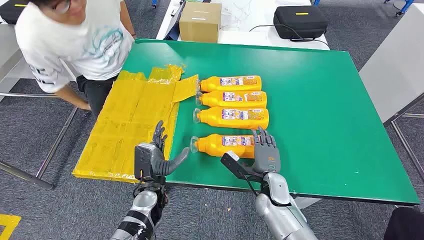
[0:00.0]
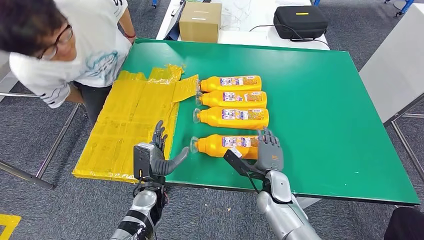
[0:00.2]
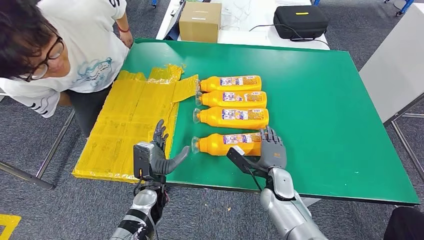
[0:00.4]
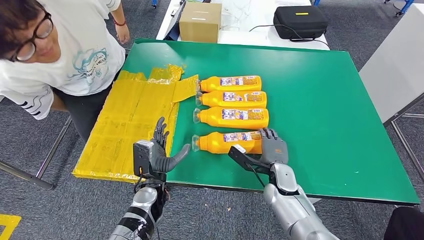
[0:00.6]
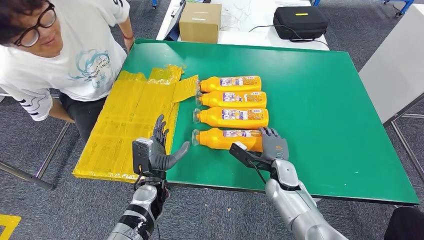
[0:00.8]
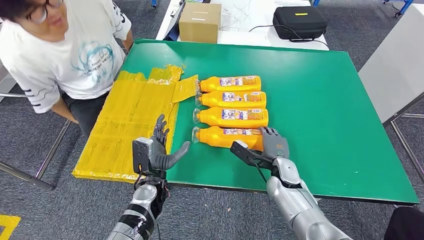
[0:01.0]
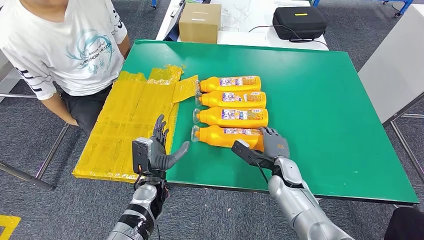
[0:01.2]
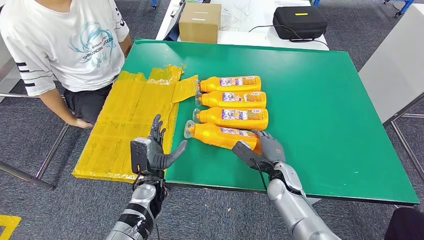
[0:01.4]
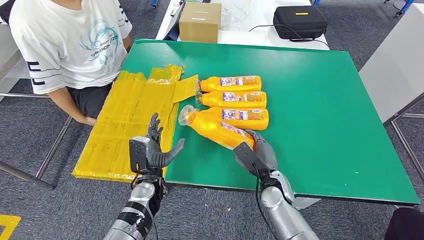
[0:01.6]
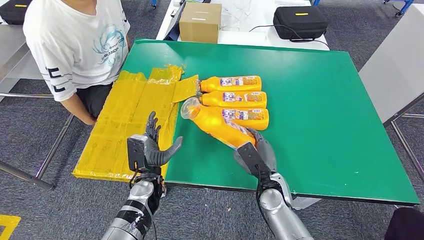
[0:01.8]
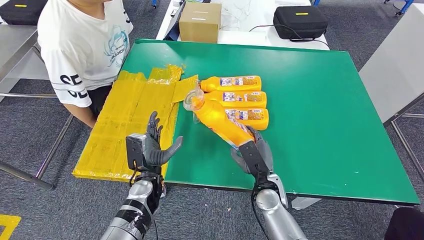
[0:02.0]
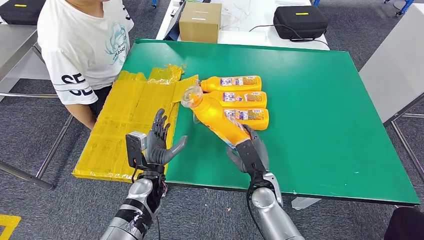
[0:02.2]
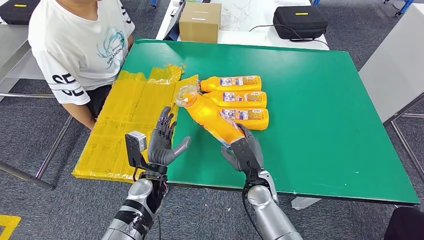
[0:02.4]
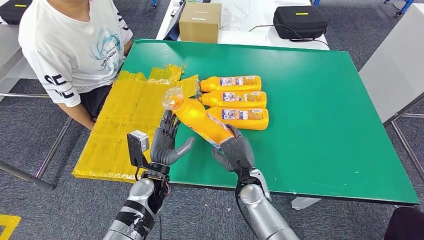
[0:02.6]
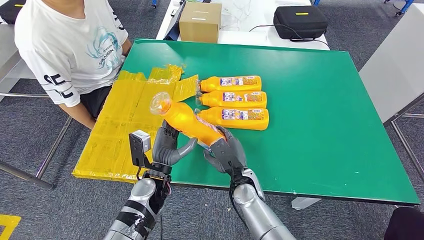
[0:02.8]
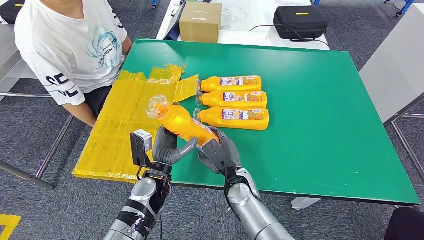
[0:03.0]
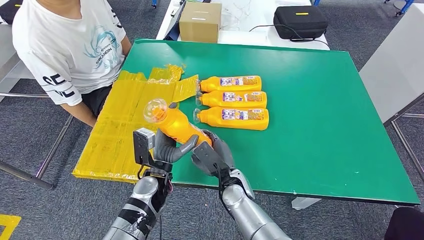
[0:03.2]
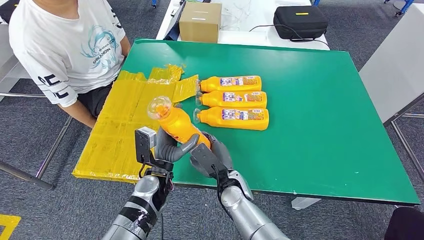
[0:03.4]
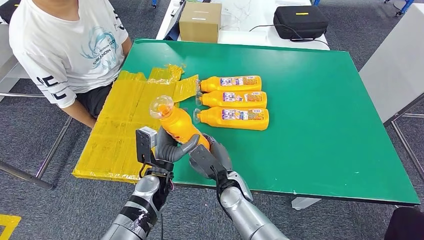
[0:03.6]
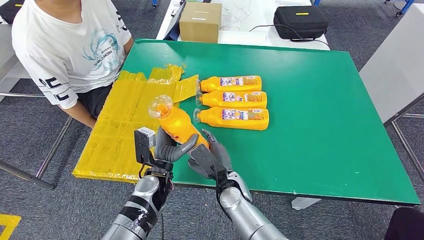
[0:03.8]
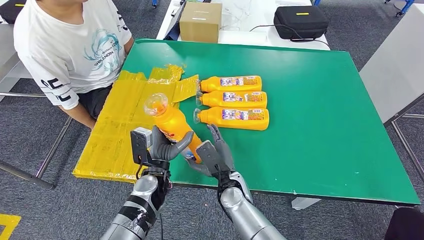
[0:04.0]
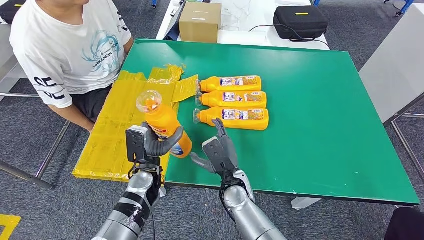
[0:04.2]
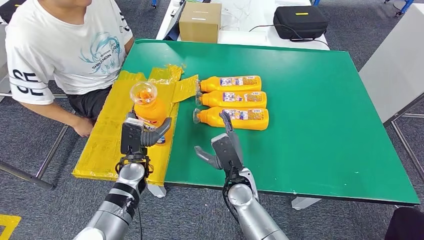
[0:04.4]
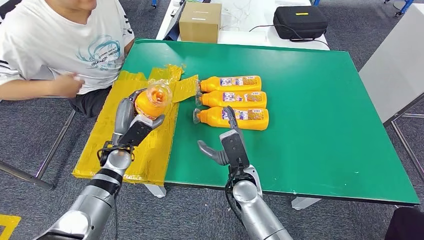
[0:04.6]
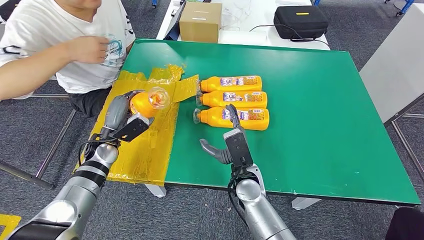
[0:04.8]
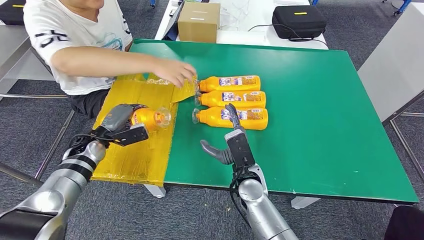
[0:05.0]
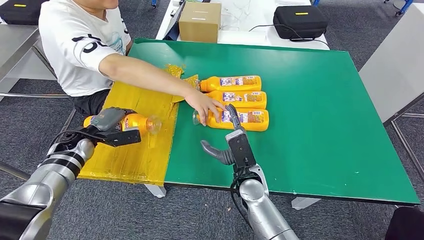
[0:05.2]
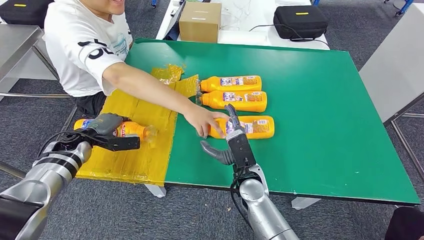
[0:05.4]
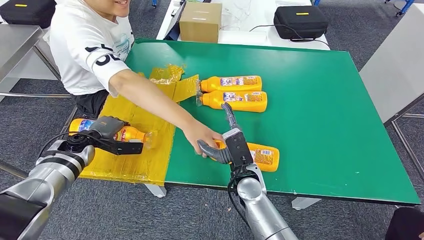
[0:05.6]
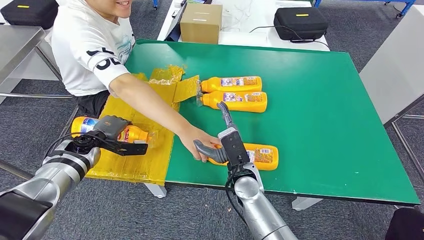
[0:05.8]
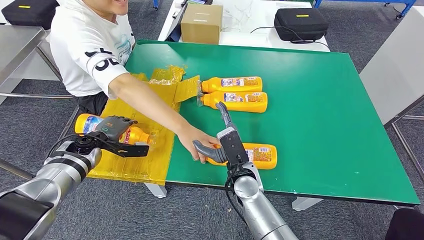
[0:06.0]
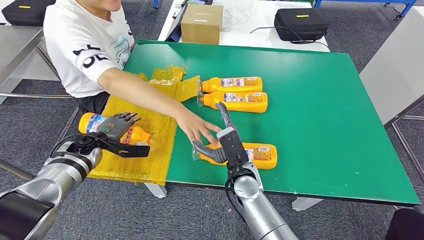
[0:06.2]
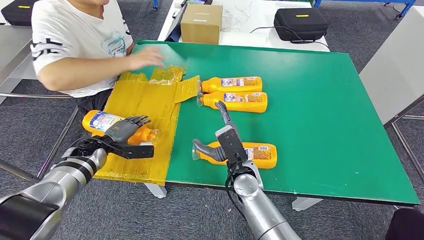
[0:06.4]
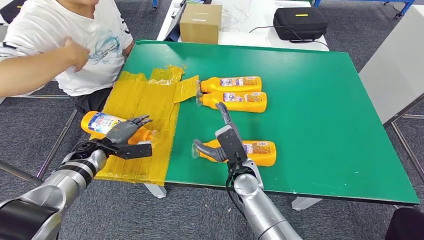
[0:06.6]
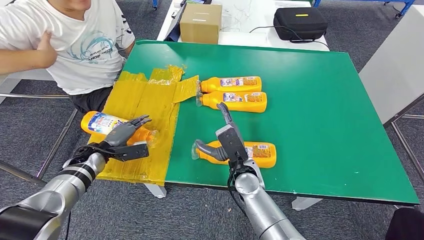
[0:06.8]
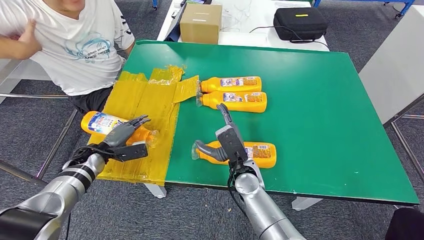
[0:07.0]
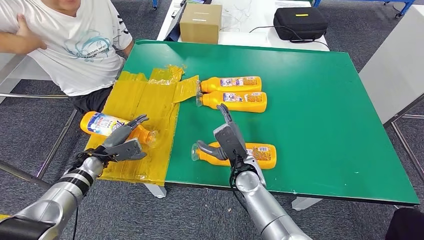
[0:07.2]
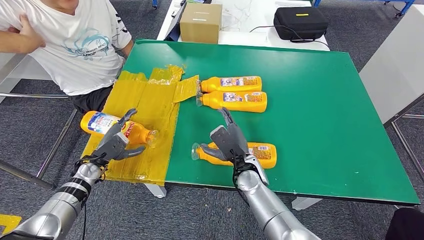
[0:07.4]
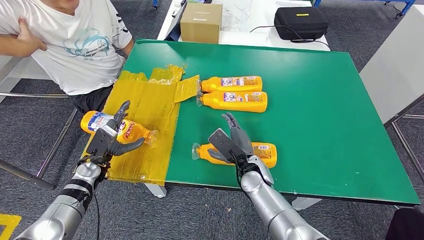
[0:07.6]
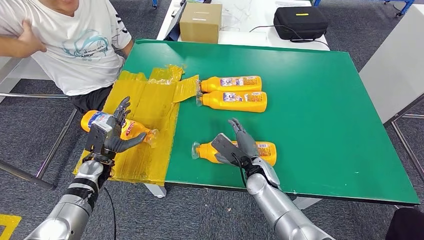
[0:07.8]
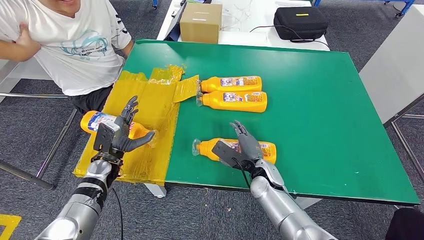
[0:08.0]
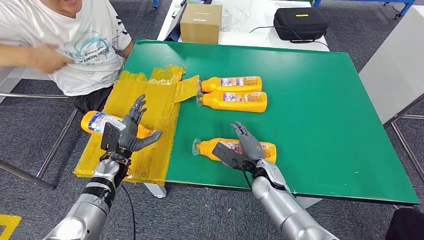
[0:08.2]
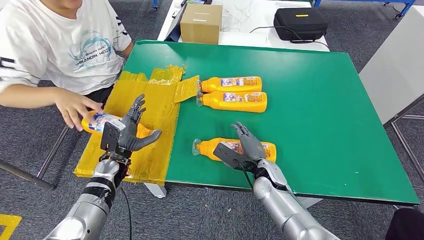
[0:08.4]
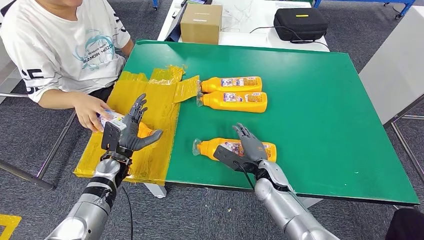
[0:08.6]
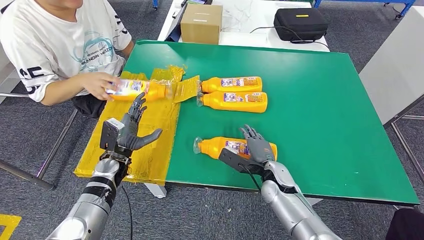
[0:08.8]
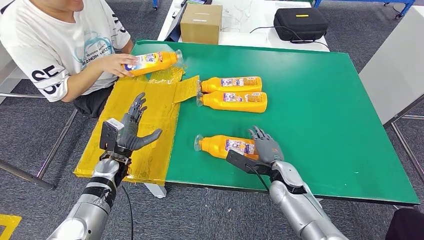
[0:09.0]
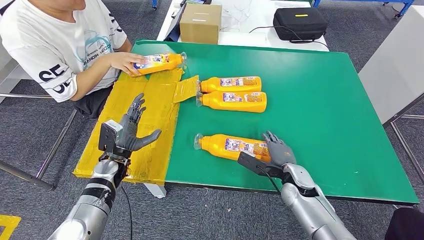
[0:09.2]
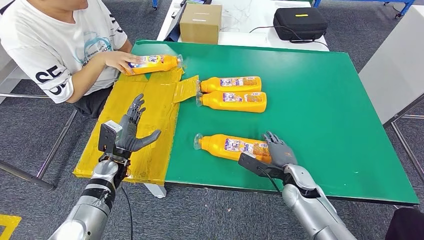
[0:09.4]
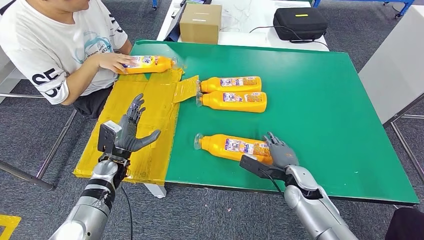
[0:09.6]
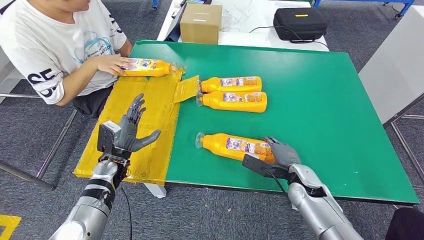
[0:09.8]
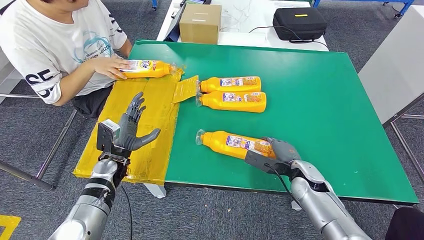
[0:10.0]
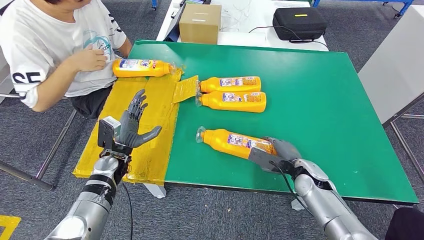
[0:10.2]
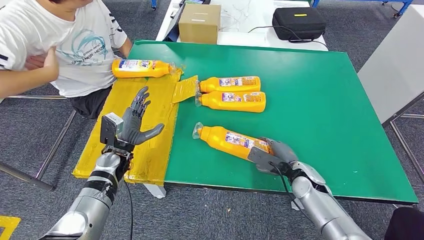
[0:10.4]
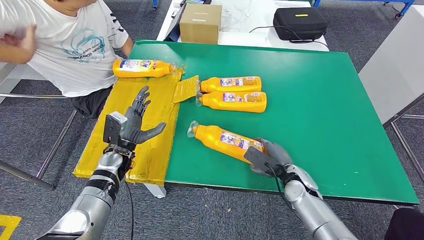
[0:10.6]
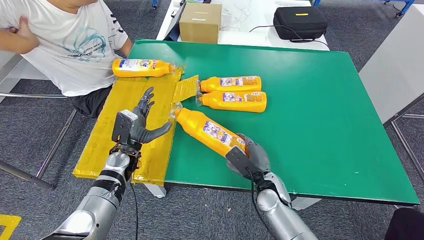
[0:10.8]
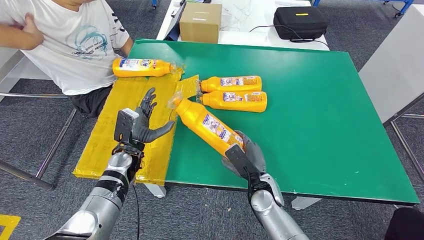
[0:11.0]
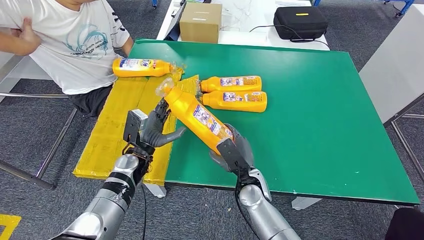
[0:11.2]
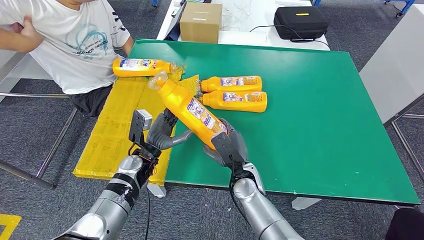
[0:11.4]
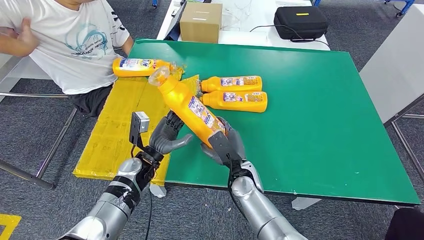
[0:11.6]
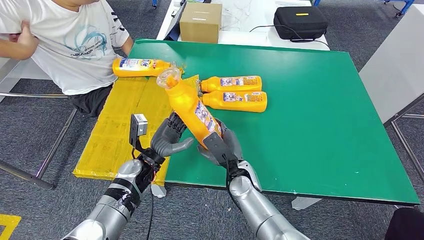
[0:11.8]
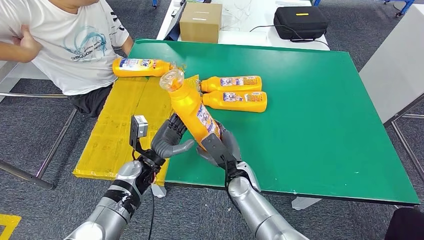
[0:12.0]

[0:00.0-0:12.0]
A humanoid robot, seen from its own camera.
Step, 0:00.0 to 0:04.2: Take the bottle from the table.
Step, 0:04.6 to 0:06.8: Flip the bottle to face forward.
0:01.6 to 0:03.0: The right hand shifts some 10 cm to the left.
0:03.0 to 0:04.4: The left hand shifts approximately 5 cm to the left.

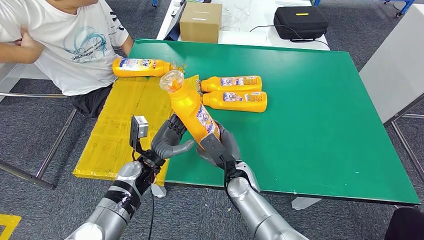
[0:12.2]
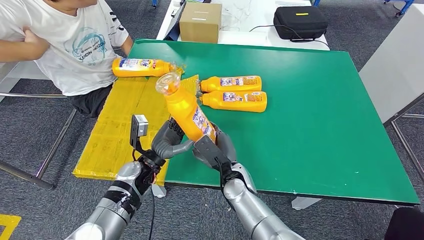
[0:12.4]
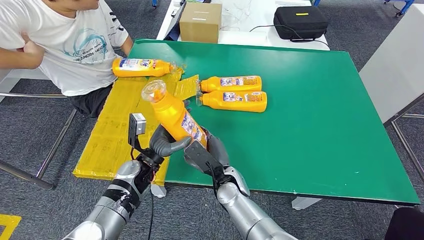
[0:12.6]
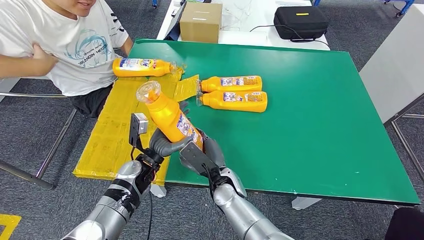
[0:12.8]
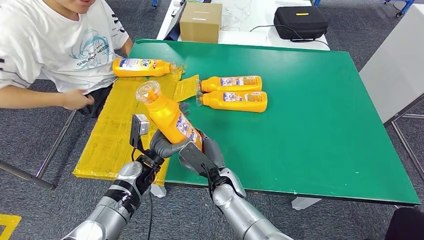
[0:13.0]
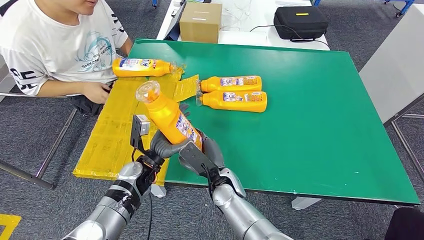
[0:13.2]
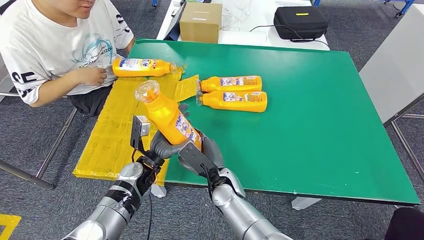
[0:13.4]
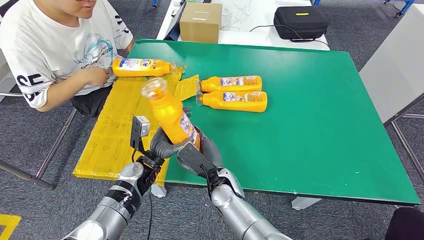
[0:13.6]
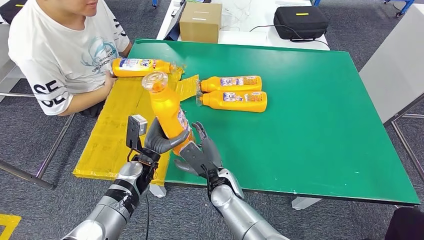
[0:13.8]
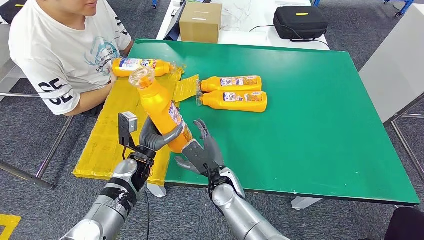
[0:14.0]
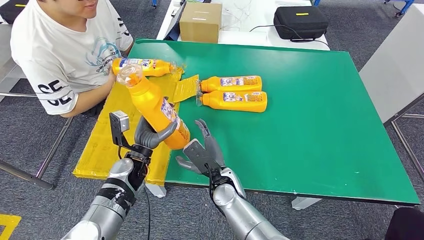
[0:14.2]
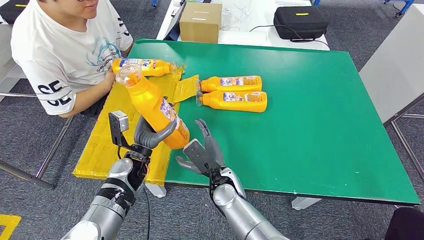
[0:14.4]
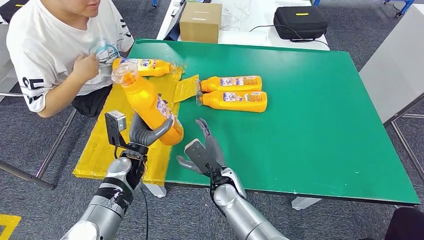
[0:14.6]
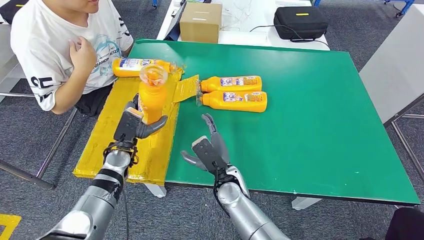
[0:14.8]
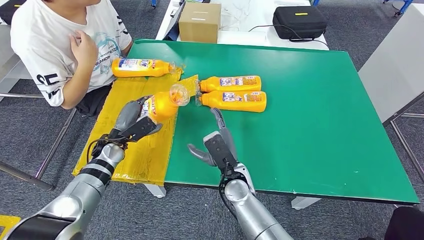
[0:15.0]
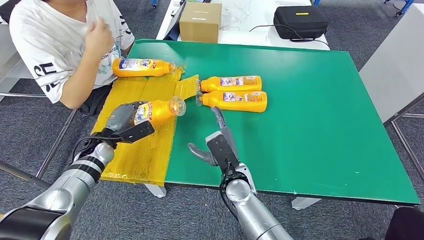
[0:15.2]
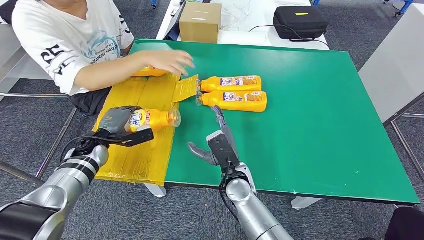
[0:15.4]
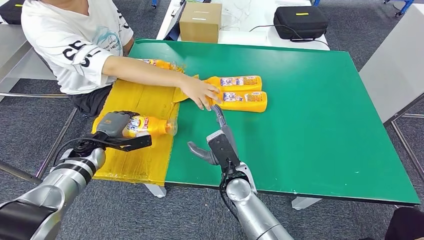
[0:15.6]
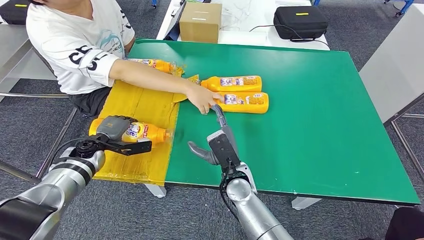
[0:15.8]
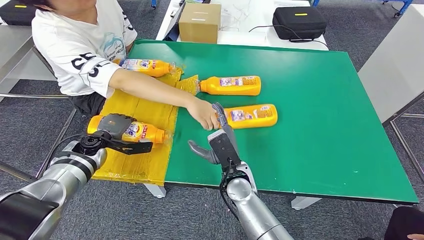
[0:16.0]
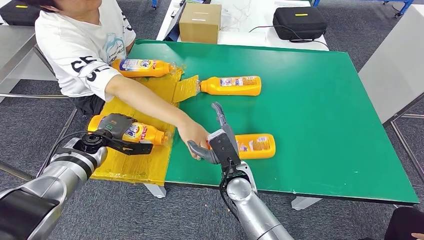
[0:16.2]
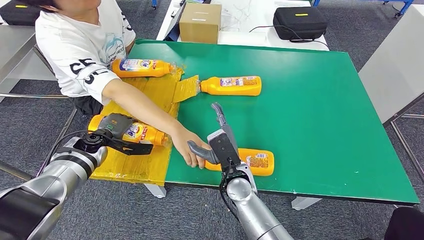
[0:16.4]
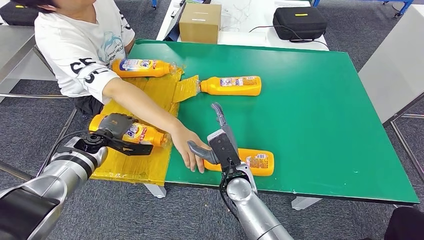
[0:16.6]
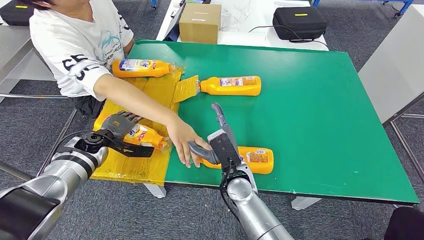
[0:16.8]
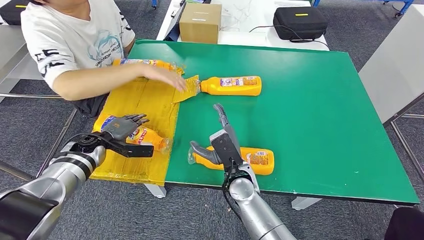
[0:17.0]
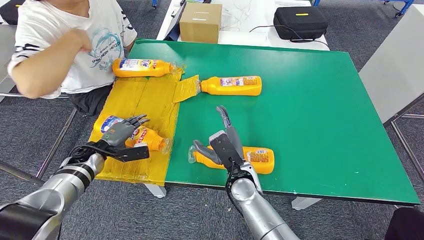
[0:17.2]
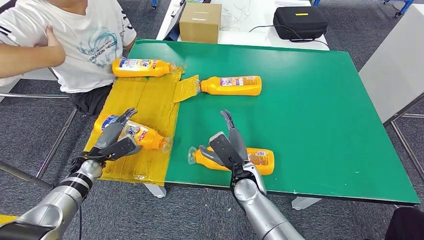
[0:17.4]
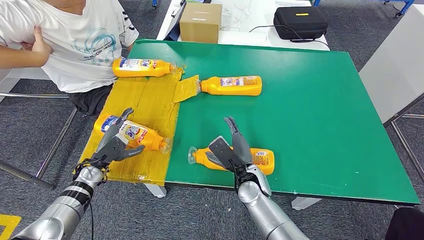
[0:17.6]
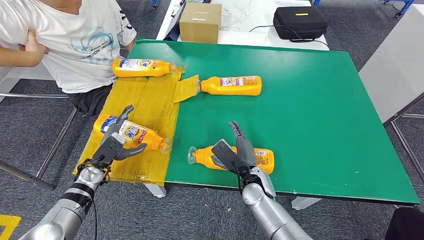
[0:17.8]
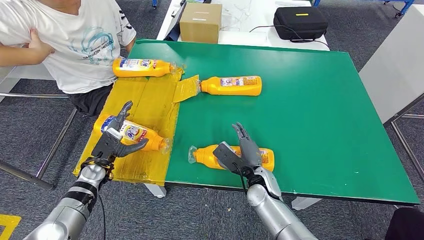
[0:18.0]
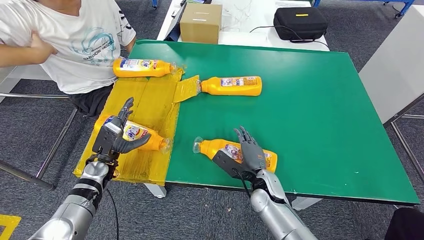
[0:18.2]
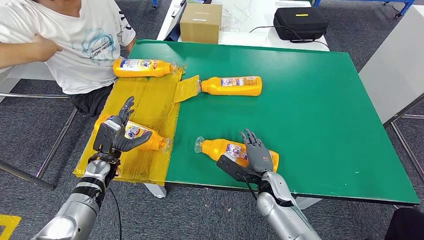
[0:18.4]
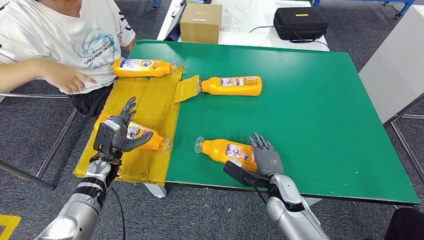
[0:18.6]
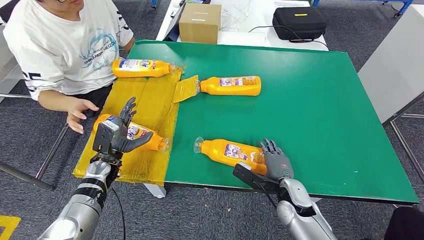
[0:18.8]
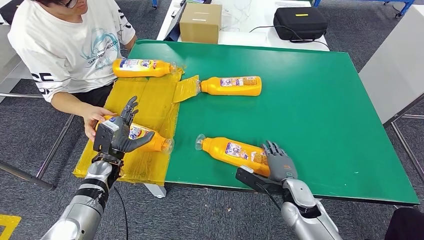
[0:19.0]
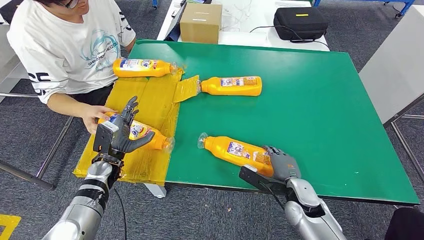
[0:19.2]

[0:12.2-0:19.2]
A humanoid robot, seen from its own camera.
Step, 0:12.8 to 0:16.8: Flip the bottle to face forward.
0:12.2 to 0:13.6: The right hand changes place by roughly 5 cm.
